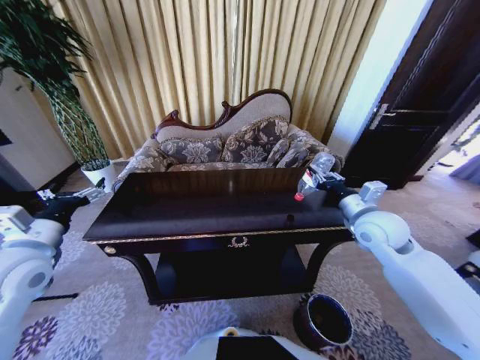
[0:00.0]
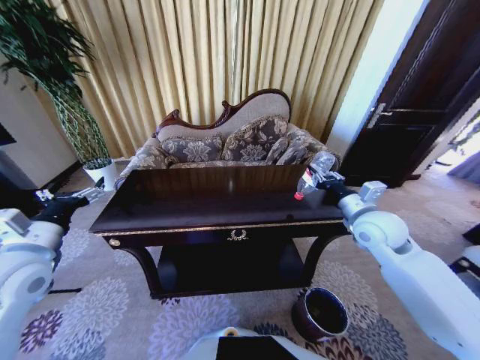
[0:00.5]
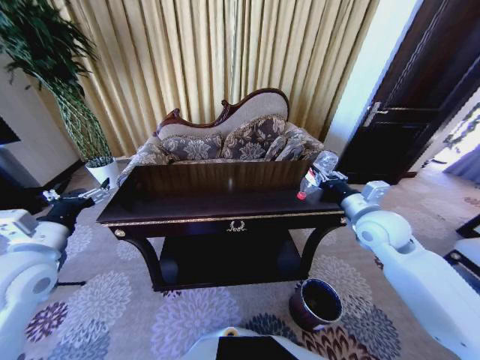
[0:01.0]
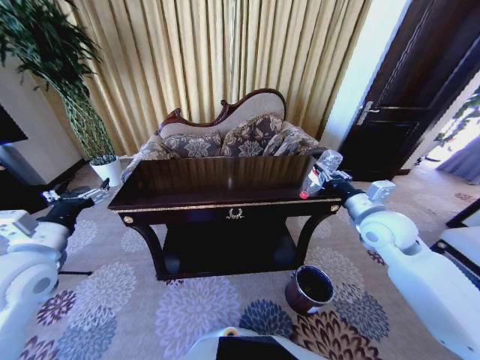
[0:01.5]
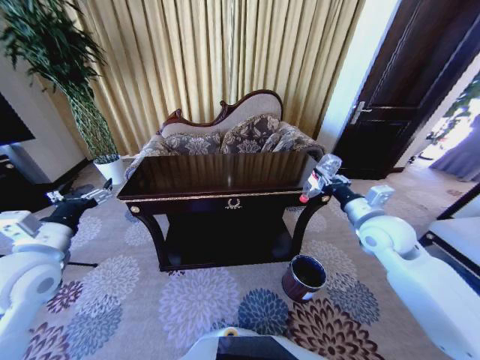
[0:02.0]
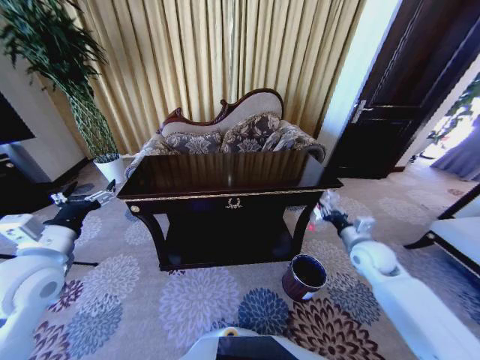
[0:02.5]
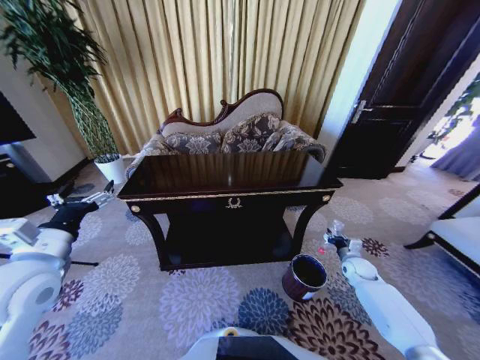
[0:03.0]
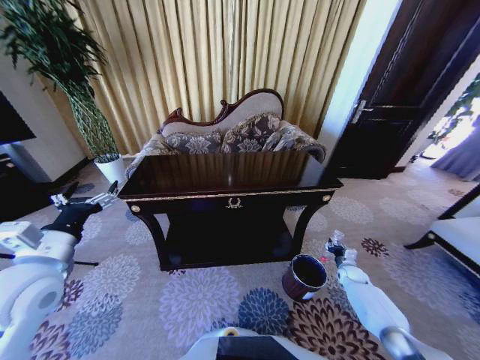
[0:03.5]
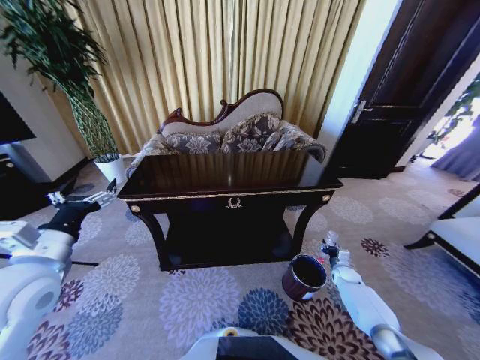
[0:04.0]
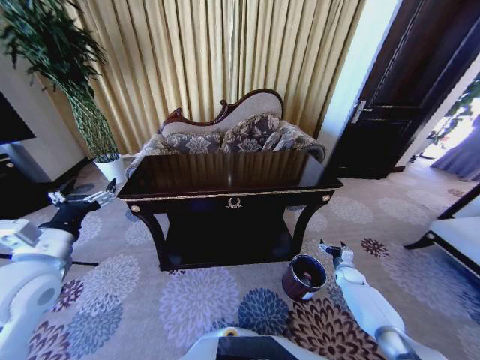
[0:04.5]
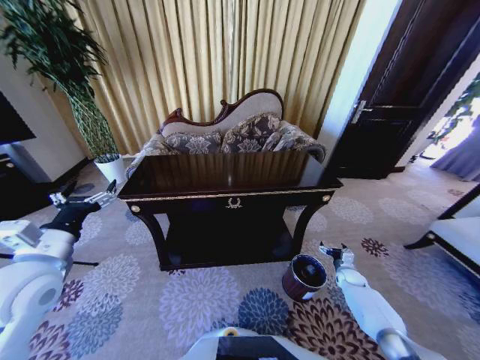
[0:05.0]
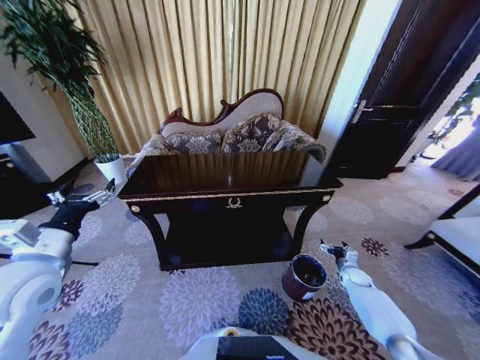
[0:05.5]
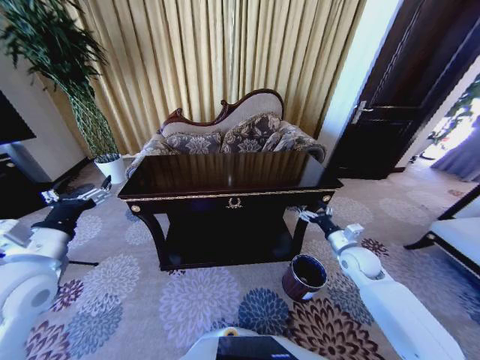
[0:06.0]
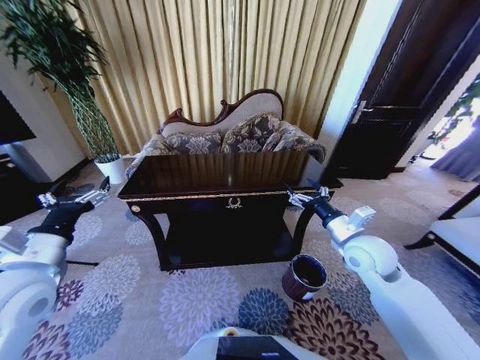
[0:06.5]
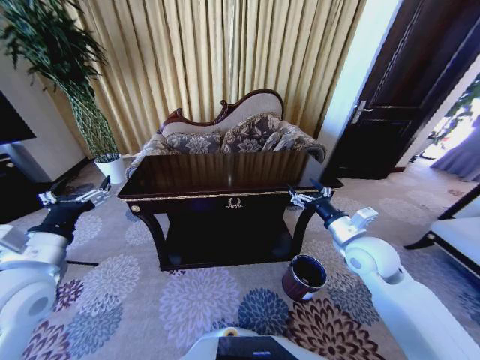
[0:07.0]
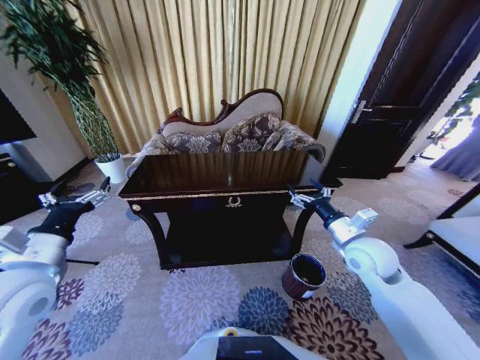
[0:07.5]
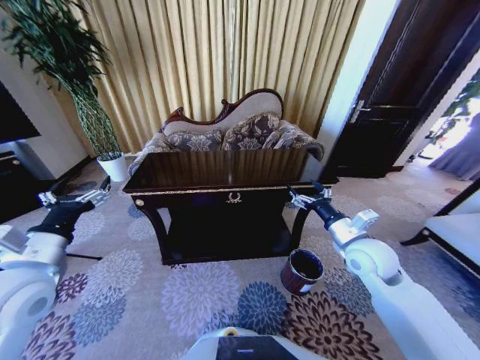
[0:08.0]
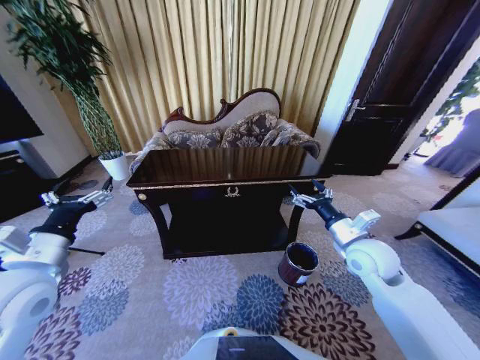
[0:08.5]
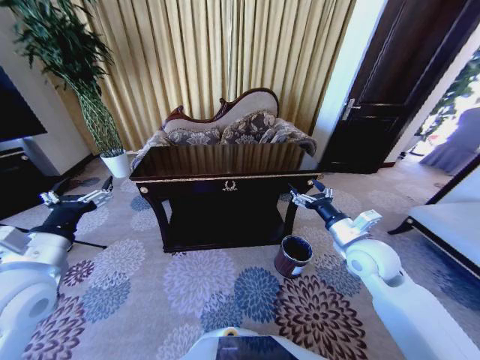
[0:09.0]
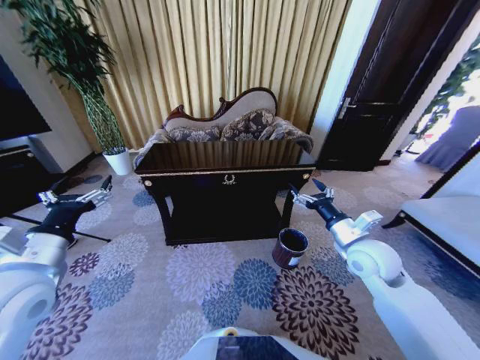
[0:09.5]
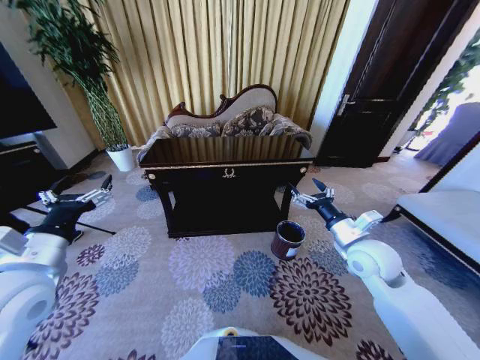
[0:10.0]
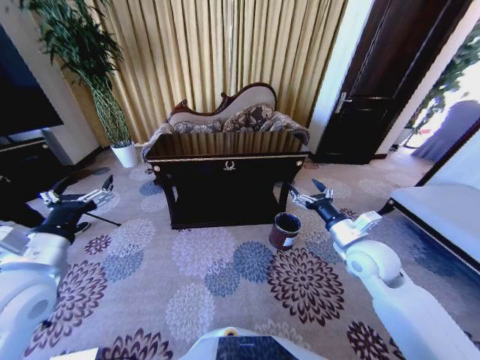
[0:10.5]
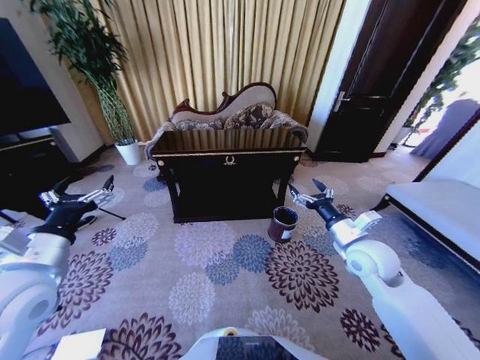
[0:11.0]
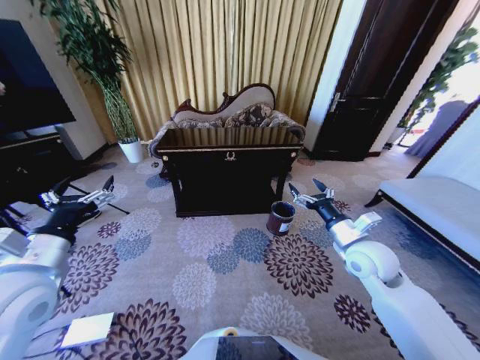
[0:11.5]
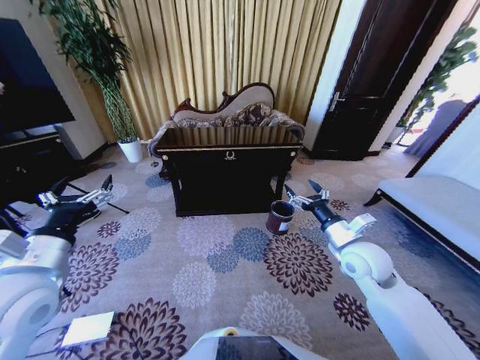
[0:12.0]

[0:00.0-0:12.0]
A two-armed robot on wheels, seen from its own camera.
Task of the whole recording: Move to the front of the table and place the trash on the table into the trash bin.
0:02.0 to 0:04.0: The right gripper moves downward, some 35 cm.
0:04.0 to 0:06.0: The right gripper heads upward and to the left, covering approximately 25 cm, and opens.
0:06.0 to 0:08.0: The right gripper travels upward and to the left by about 10 cm.

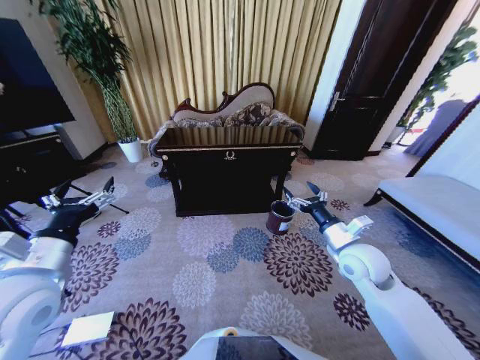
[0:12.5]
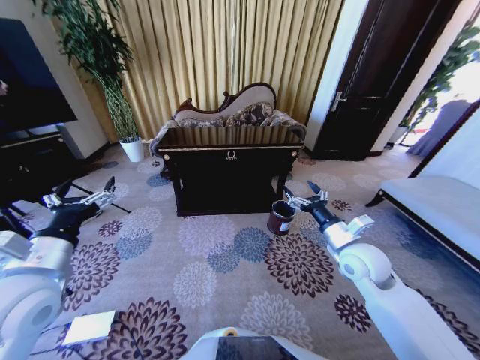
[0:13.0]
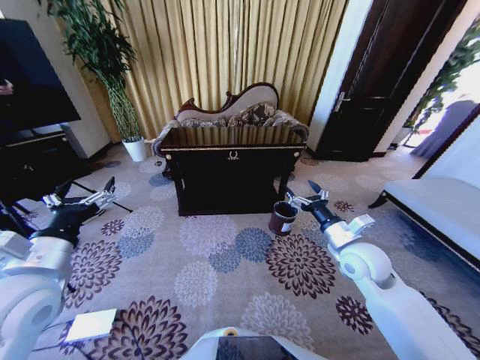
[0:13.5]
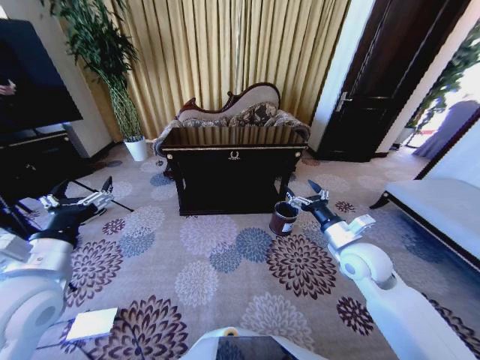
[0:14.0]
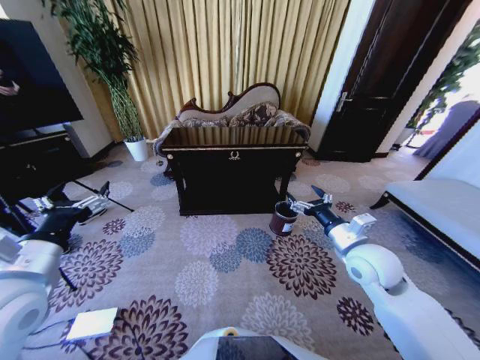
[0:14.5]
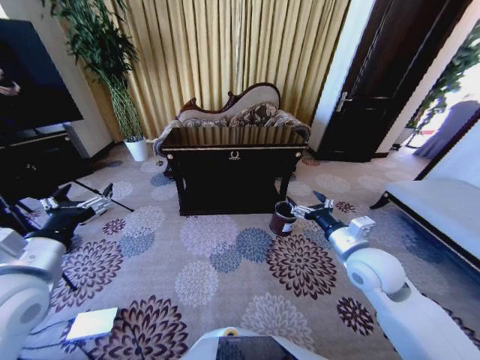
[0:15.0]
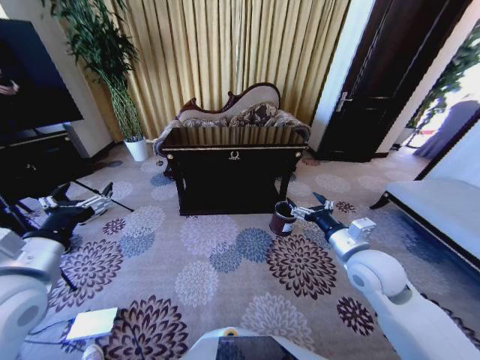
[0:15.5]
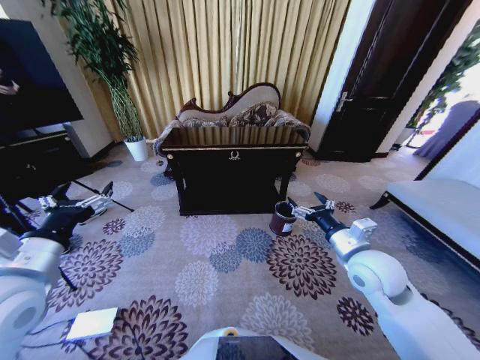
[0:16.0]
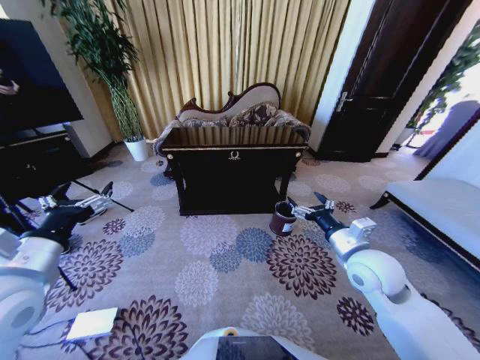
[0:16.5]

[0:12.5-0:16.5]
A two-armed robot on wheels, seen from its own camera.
Task of the whole recording: Move to the front of the table and place the trash on the table into the trash bin.
0:14.5 to 0:16.5: The grippers make only small movements.

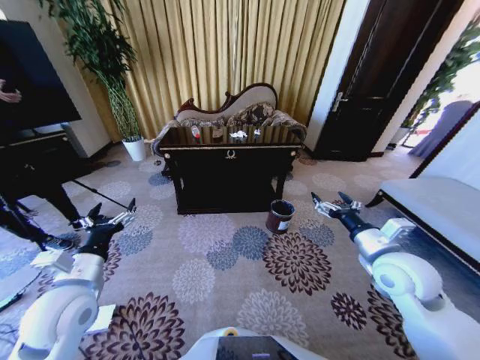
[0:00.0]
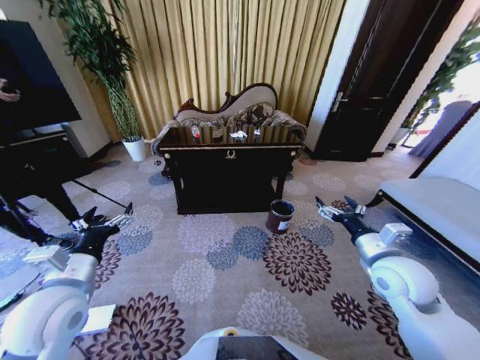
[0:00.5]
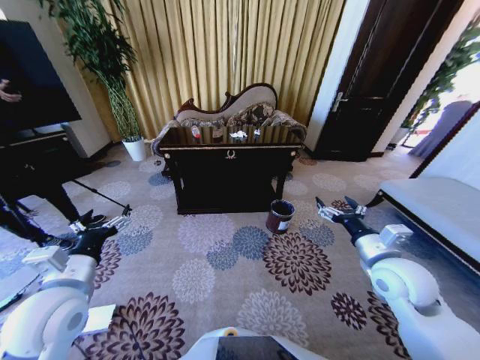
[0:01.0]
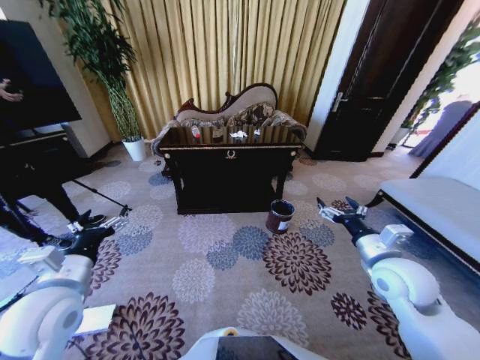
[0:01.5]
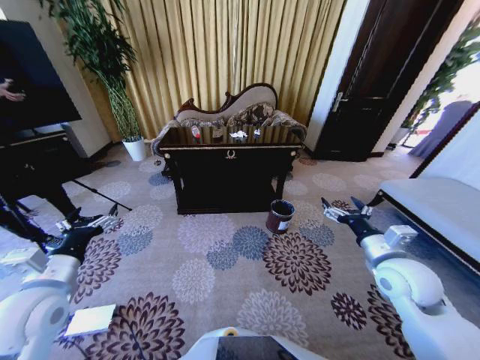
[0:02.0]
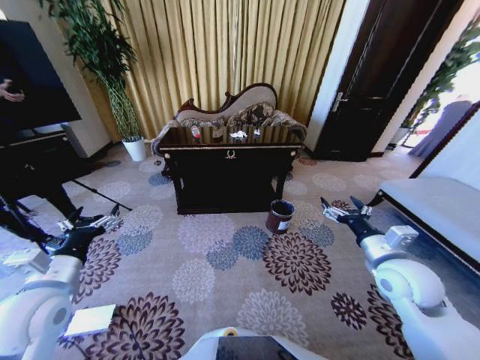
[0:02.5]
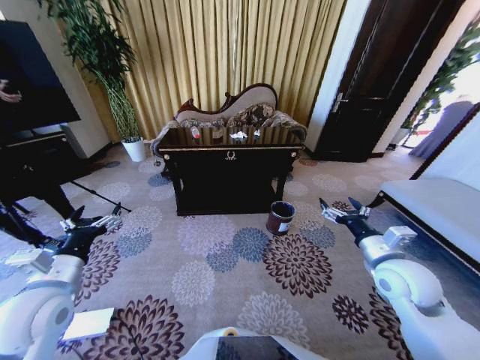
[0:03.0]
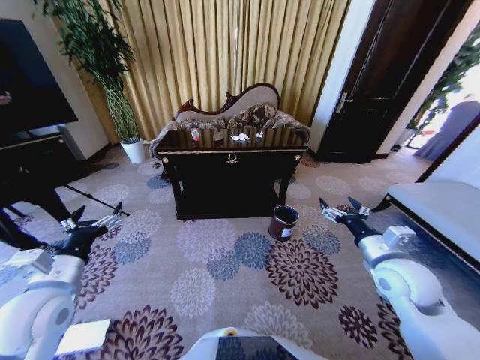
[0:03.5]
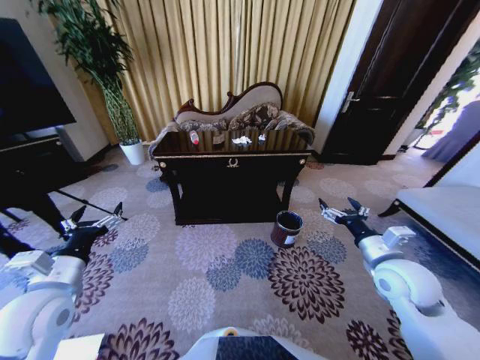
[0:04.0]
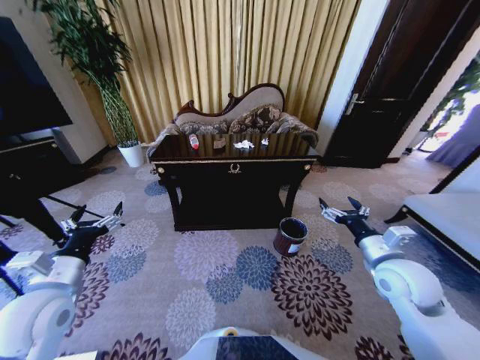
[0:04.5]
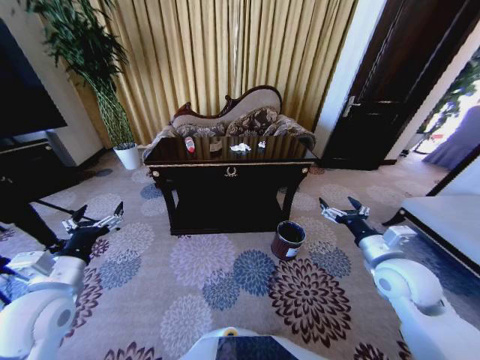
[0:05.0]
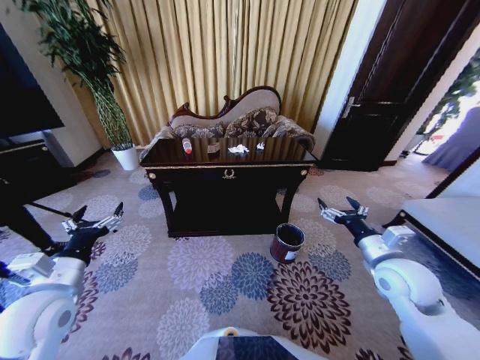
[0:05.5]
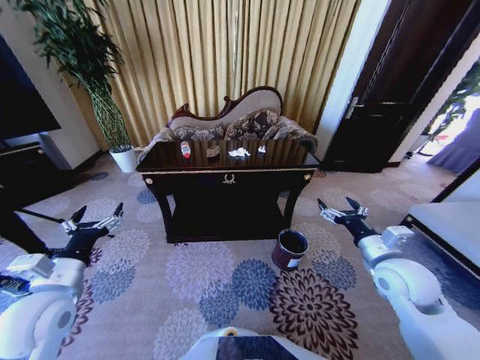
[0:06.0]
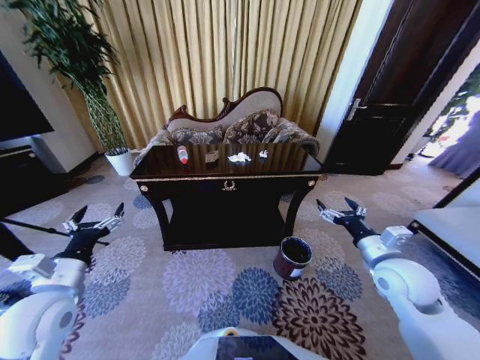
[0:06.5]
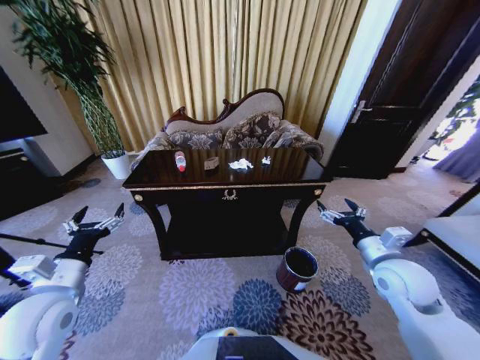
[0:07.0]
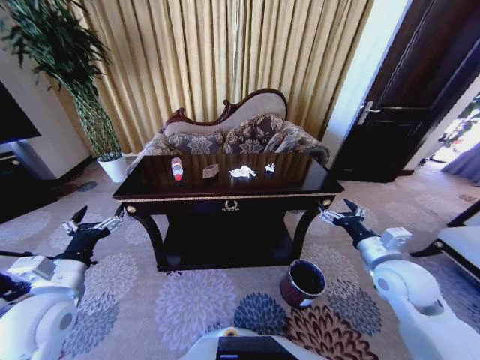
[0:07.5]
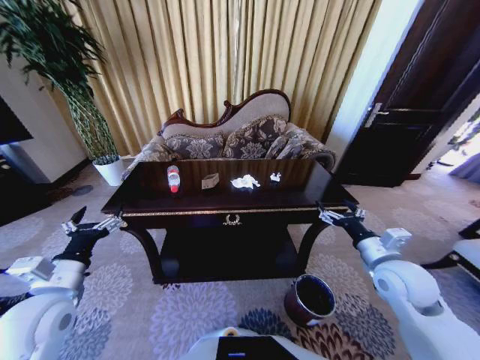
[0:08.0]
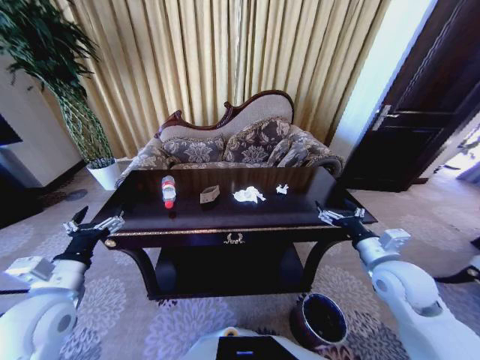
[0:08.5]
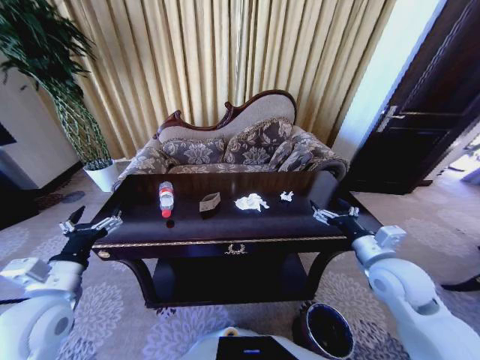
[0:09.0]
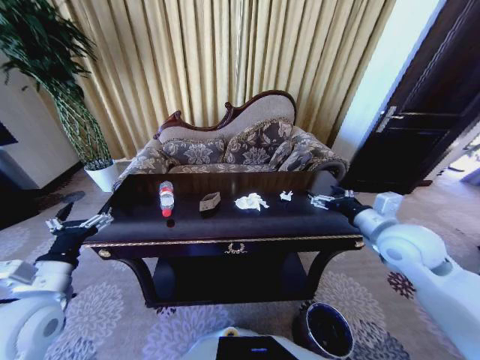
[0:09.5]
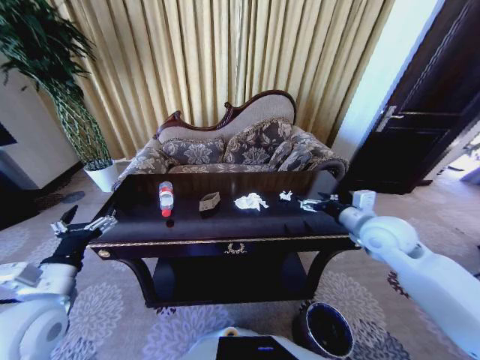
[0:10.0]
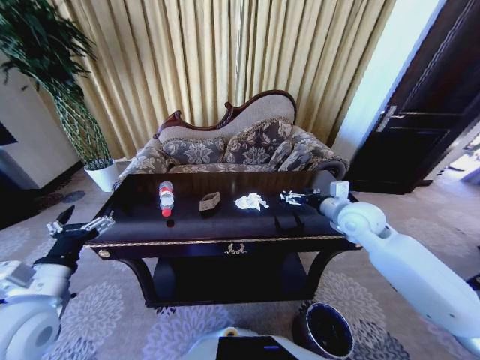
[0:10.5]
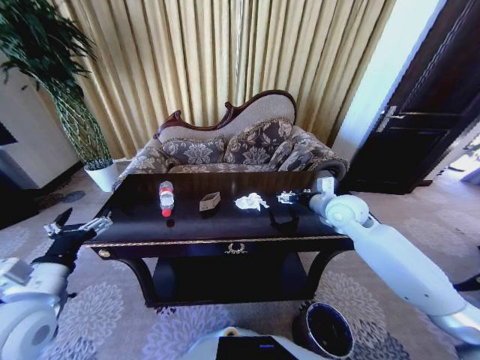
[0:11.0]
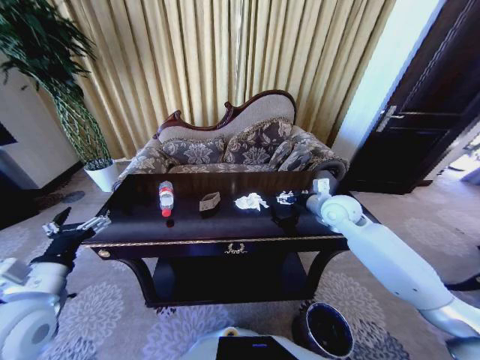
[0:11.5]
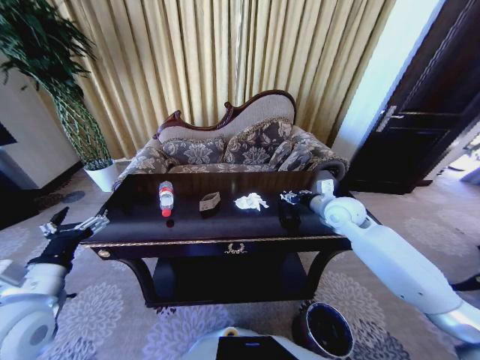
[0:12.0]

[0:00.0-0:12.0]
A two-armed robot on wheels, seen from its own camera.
Task of the whole recording: Move to the front of the table and place the trash on the table into the trash bin.
0:08.0 to 0:10.0: The right gripper travels forward and upward by roughly 10 cm.
0:10.0 to 0:12.0: The right gripper moves forward, roughly 10 cm, and closes.
